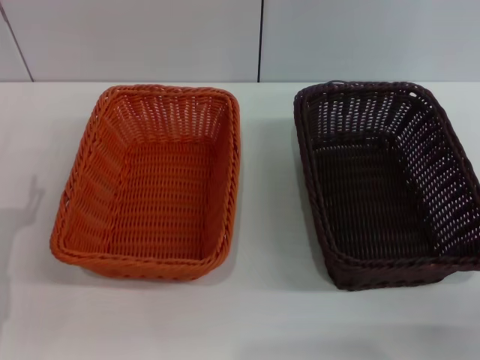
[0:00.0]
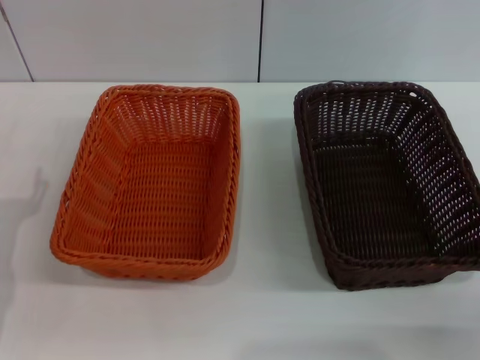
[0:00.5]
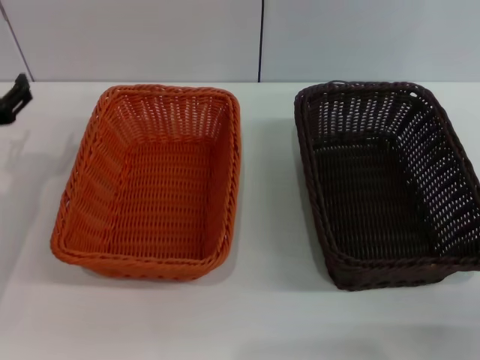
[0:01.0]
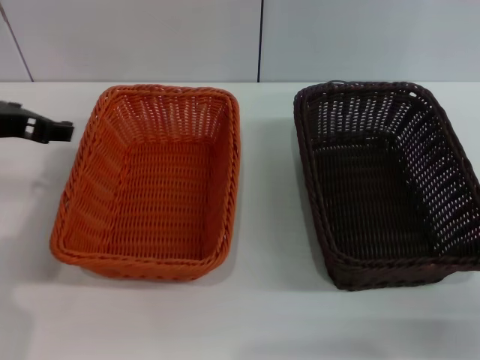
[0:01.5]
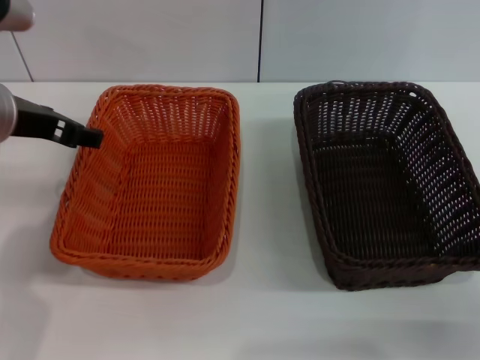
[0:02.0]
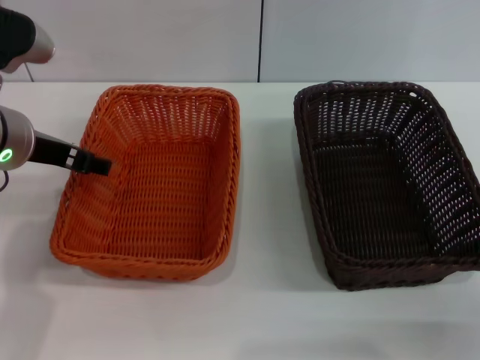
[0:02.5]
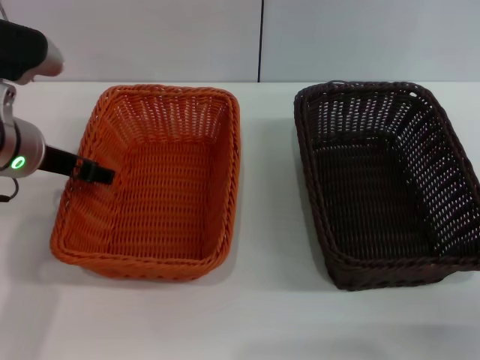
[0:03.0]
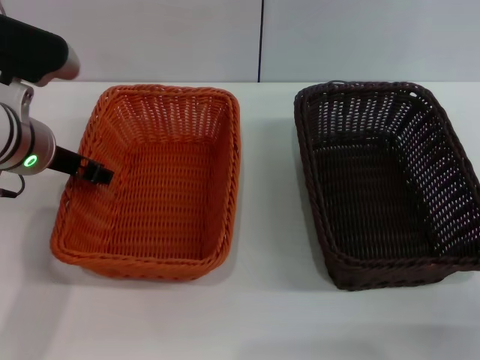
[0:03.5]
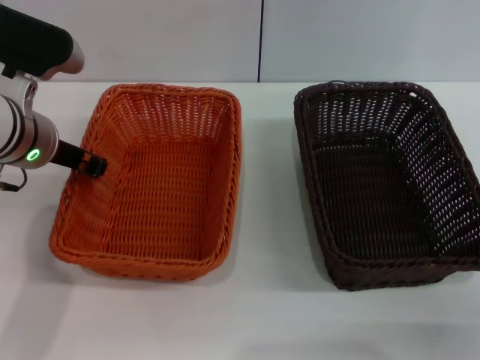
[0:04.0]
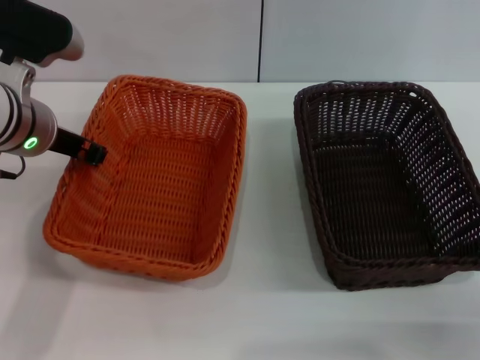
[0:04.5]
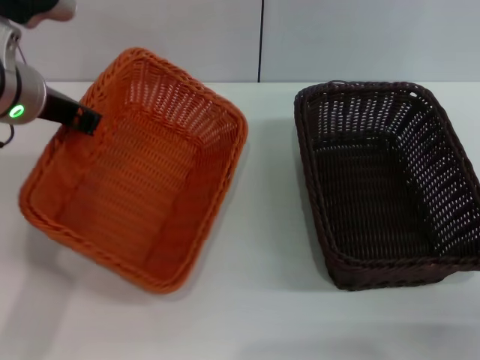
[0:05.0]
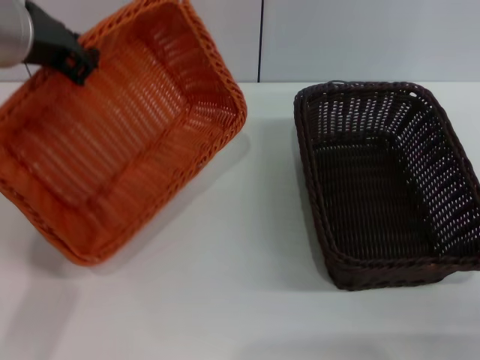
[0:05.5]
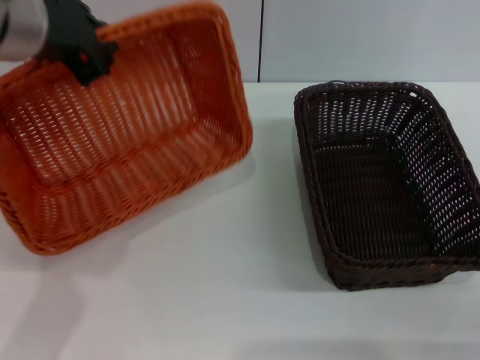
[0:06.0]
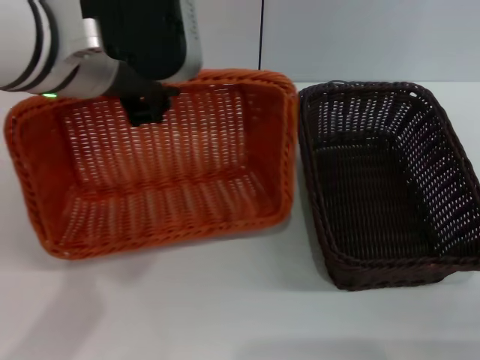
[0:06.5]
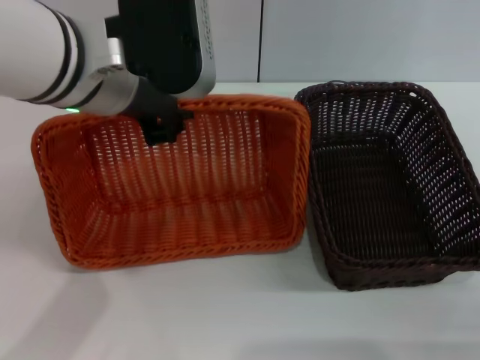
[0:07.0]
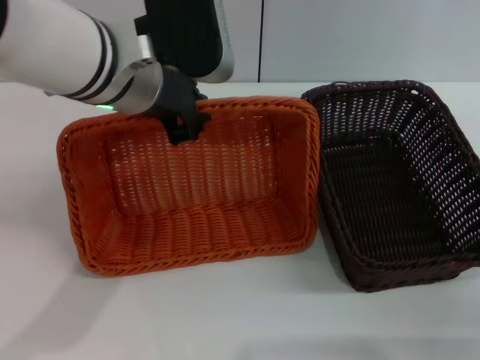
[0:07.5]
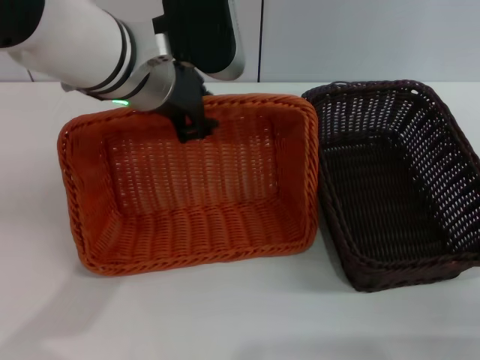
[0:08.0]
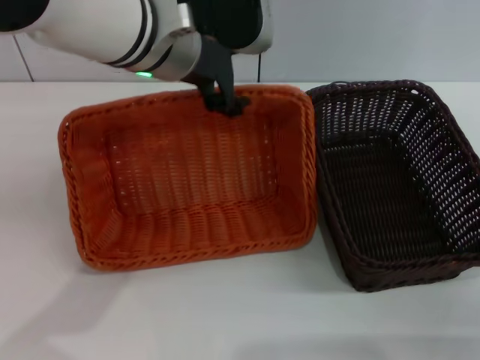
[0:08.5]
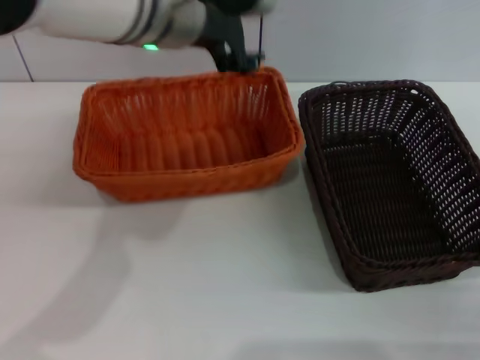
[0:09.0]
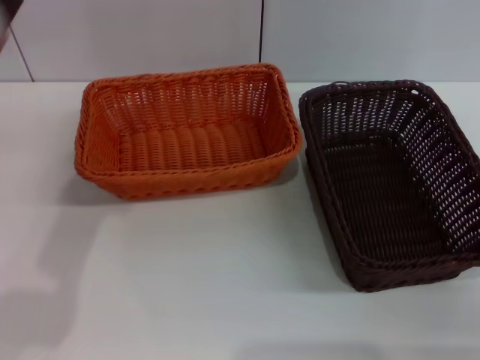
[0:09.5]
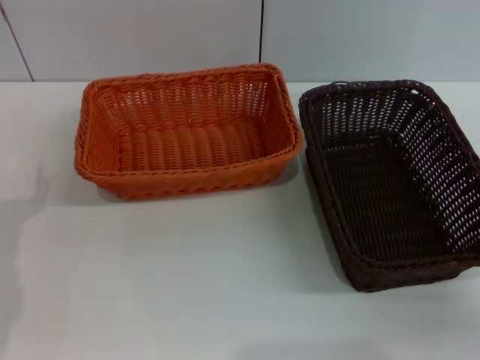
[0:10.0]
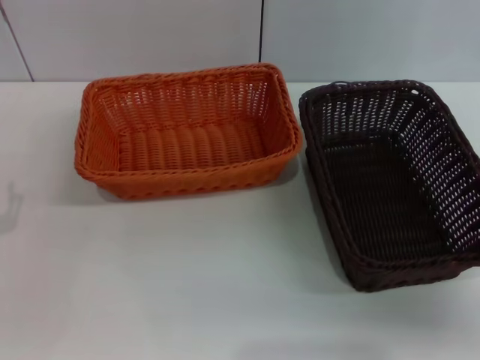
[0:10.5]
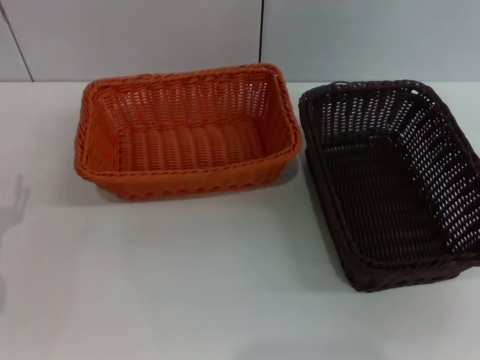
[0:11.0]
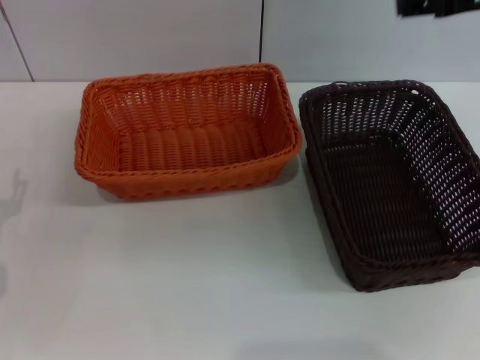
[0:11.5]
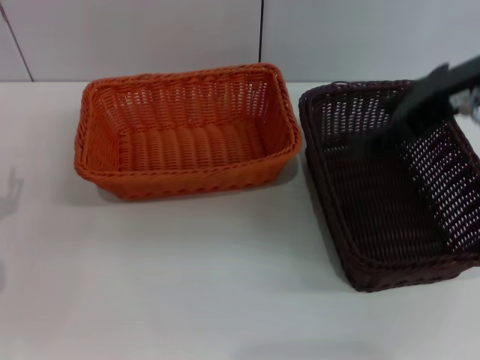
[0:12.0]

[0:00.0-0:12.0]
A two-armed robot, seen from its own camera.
Step, 0:00.0 to 0:04.5: Pick up the light basket with the left gripper.
Step, 0:05.0 to 0:08.5: Place the light basket in the center of view with the left gripper.
0:00.0 to 0:02.0: The left gripper is displaced upward, forward and to the right by some 20 cm.
0:02.0 to 0:04.0: The left gripper goes roughly 5 cm downward, and closes.
0:04.0 to 0:06.0: The left gripper is displaced upward by some 15 cm, and closes its fingers.
0:06.0 to 0:08.0: The left gripper shifts roughly 10 cm to the right and downward.
0:08.0 to 0:10.0: The left gripper heads to the left, downward and backward, covering about 25 cm, and opens its fingers.
0:10.0 to 0:12.0: The left gripper shifts roughly 5 cm downward. Meanwhile the right gripper moves upward, forward and to the left, approximately 30 cm.

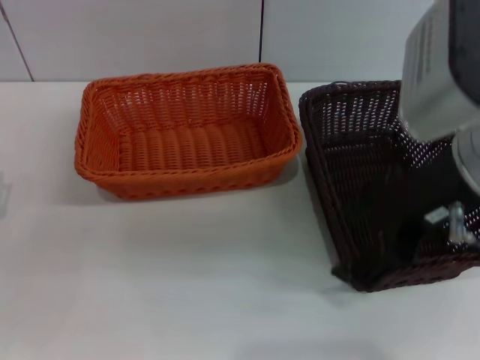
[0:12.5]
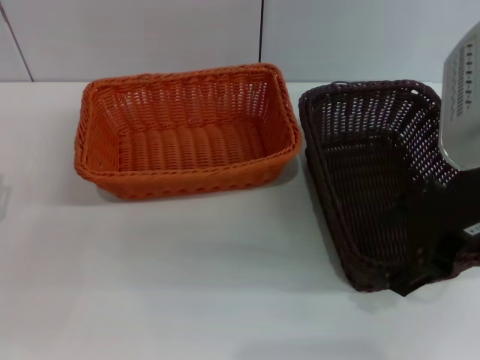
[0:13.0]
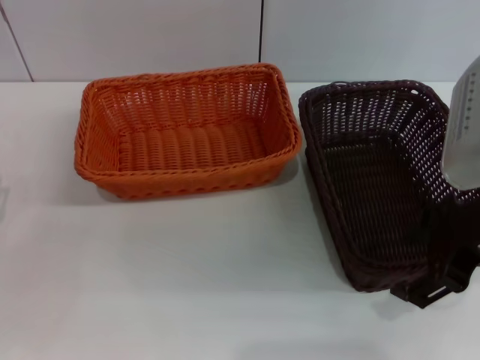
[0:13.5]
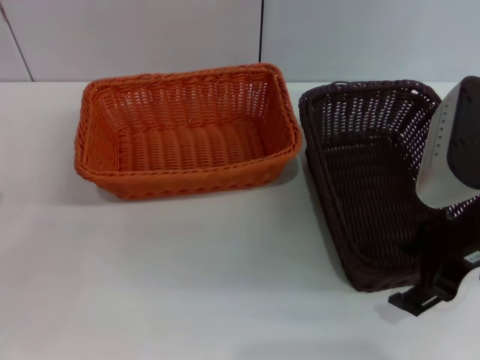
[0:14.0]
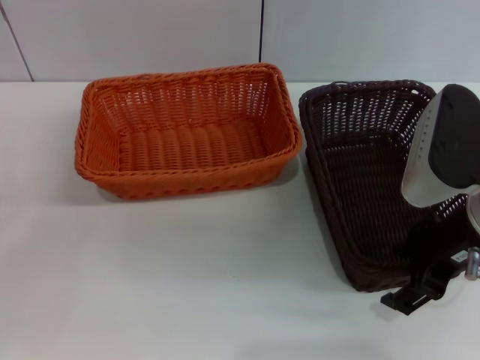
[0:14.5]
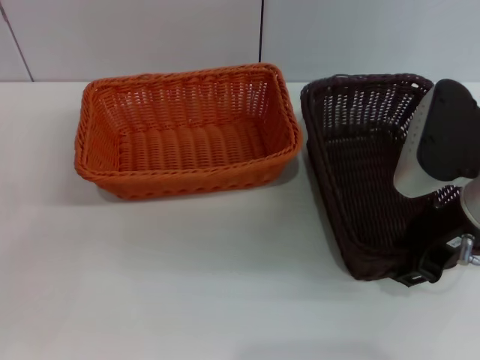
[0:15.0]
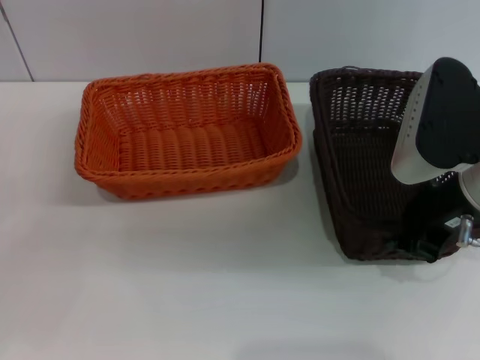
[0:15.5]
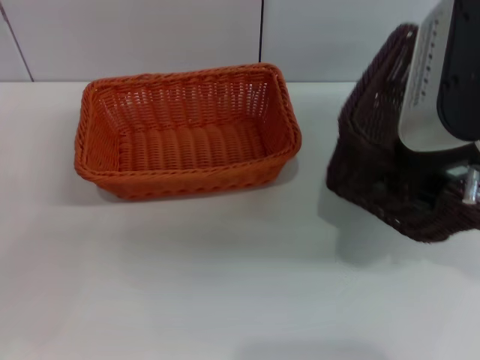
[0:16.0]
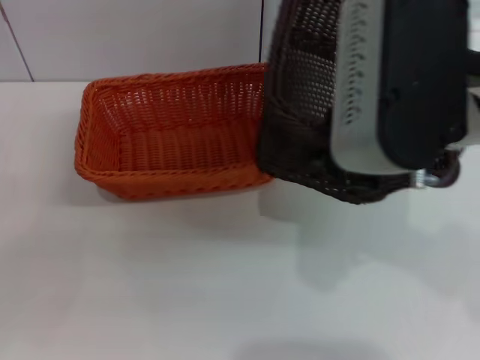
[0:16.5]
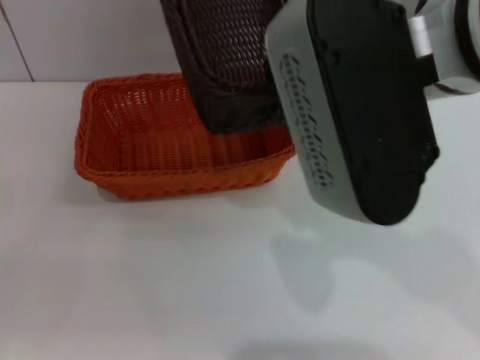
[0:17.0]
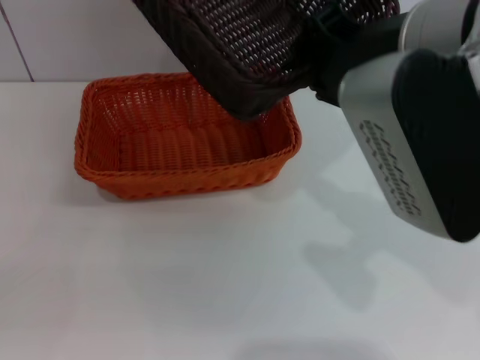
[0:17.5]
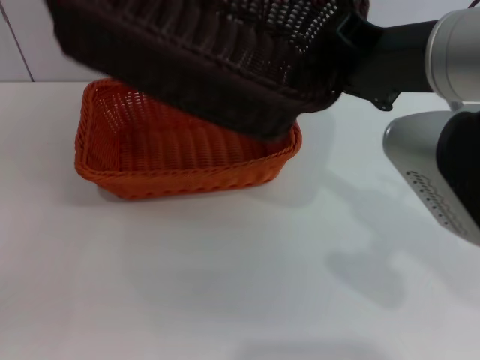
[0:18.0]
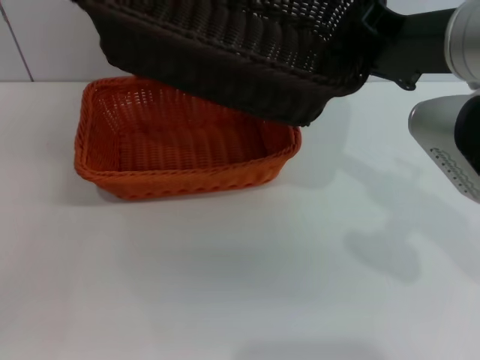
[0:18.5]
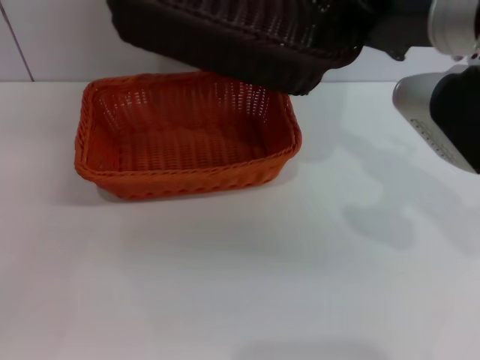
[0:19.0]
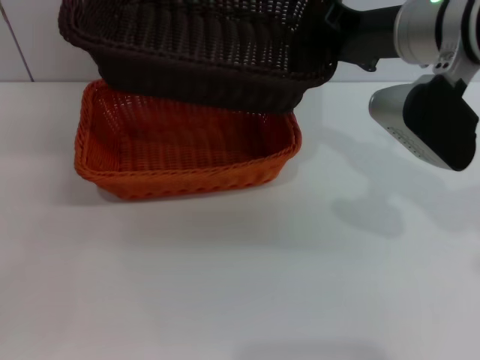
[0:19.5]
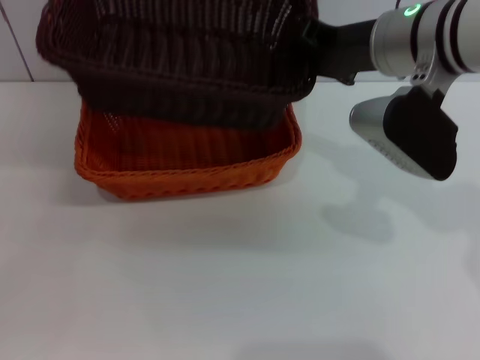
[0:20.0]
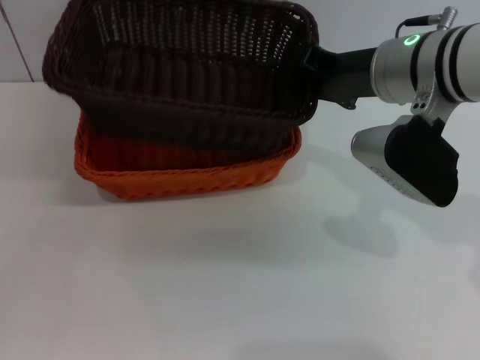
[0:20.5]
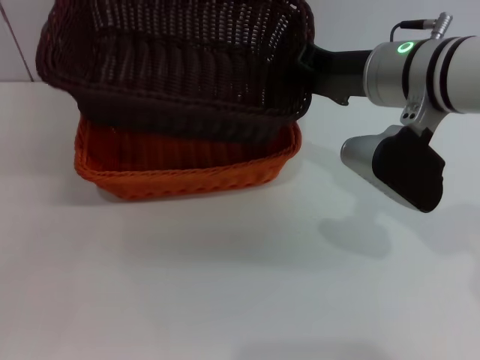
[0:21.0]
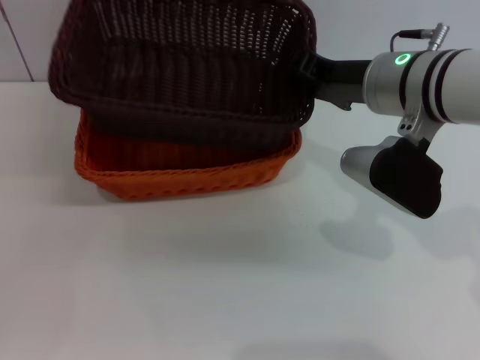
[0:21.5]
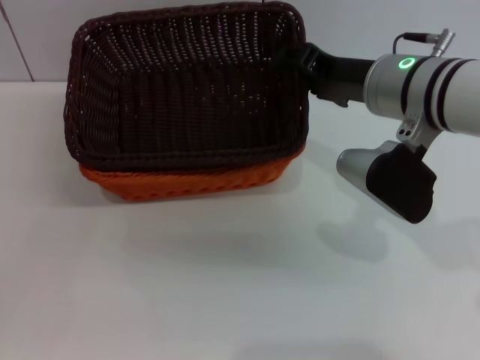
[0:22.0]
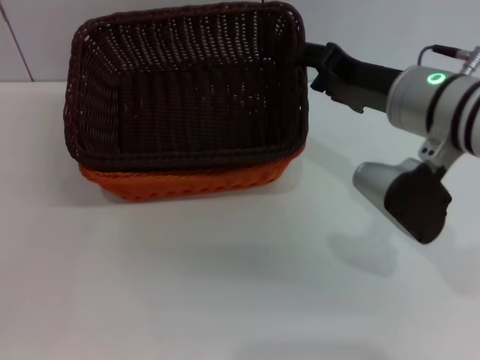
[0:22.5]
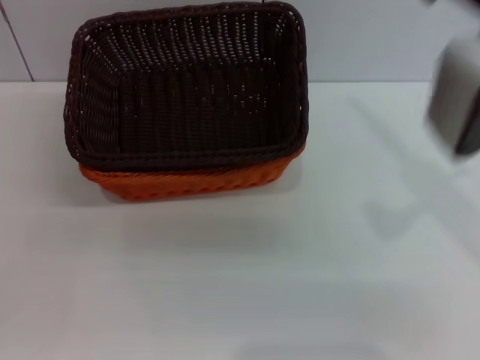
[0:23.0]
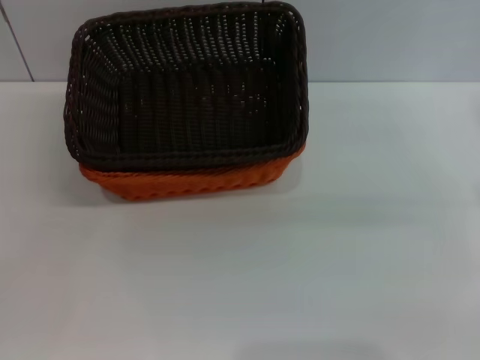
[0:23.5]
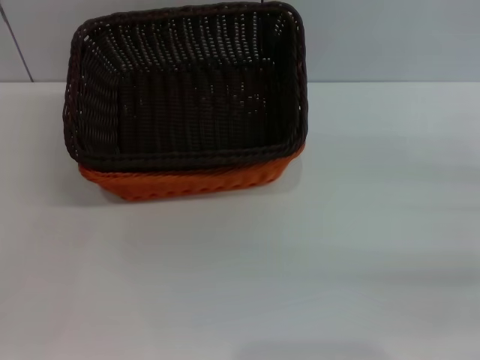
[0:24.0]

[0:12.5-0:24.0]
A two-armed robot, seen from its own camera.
Step, 0:12.5 to 0:15.0: Pick up the dark basket with the right gripper.
Step, 0:15.5 to 0:22.0: Place the dark basket on the light basket with the right gripper.
0:12.5 to 0:14.5: The right gripper moves downward, approximately 5 cm.
0:14.5 to 0:16.5: The right gripper shifts some 15 cm upward and to the left, and closes its fingers.
0:16.5 to 0:18.5: The left gripper is displaced backward by about 5 cm; the right gripper shifts approximately 5 cm forward.
0:18.5 to 0:20.0: The right gripper heads forward, covering approximately 5 cm.
0:20.0 to 0:22.0: The right gripper opens its fingers.
0:22.0 to 0:24.0: The right gripper goes approximately 25 cm to the right.
